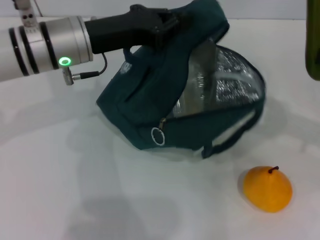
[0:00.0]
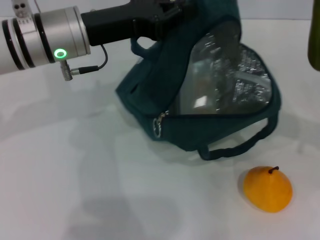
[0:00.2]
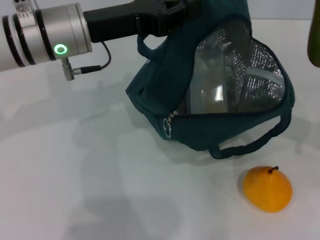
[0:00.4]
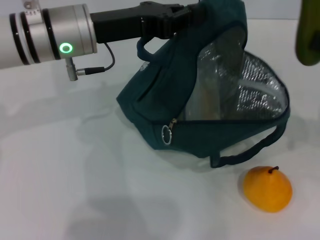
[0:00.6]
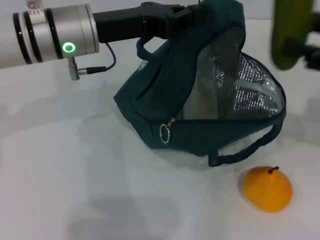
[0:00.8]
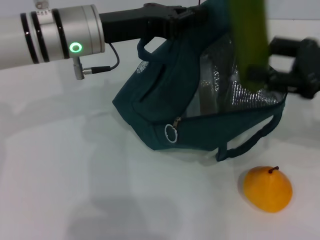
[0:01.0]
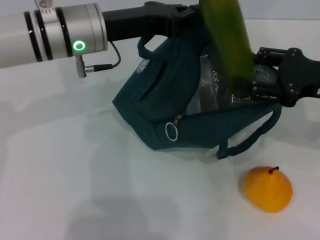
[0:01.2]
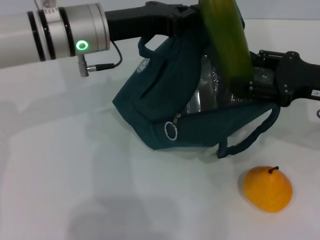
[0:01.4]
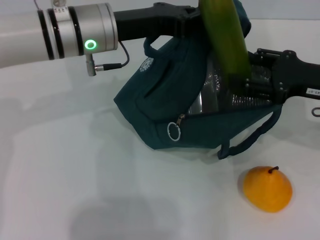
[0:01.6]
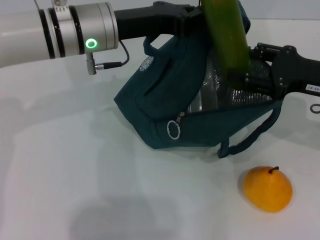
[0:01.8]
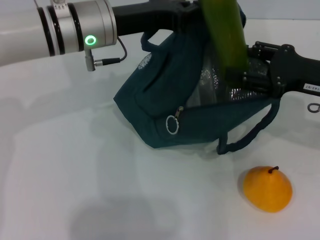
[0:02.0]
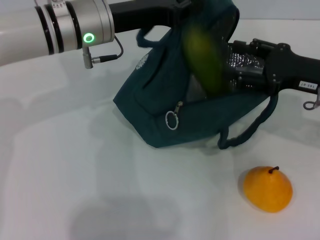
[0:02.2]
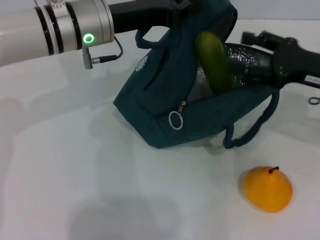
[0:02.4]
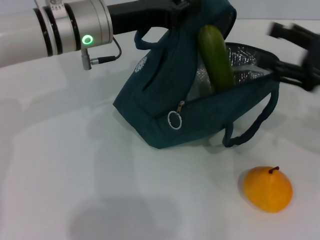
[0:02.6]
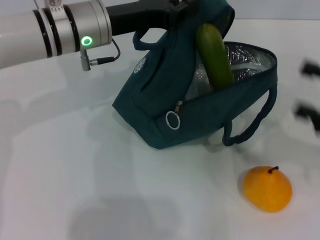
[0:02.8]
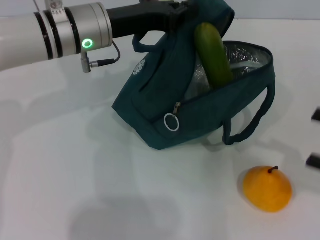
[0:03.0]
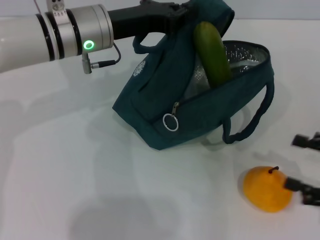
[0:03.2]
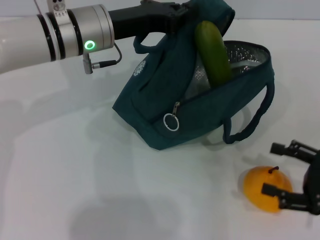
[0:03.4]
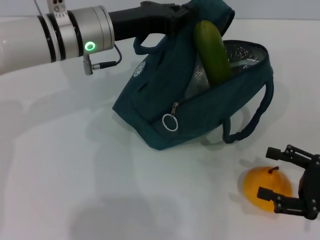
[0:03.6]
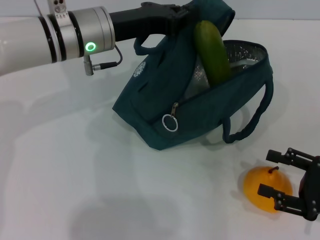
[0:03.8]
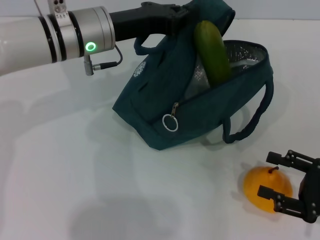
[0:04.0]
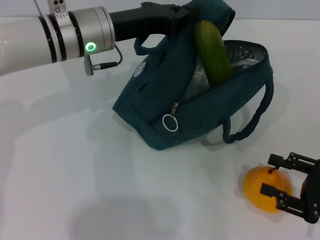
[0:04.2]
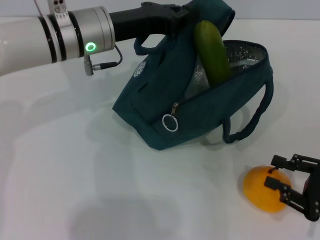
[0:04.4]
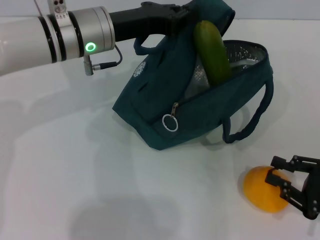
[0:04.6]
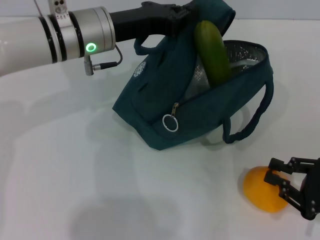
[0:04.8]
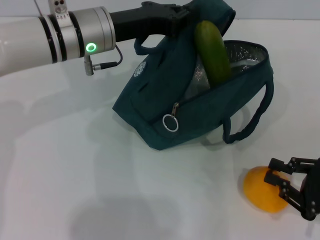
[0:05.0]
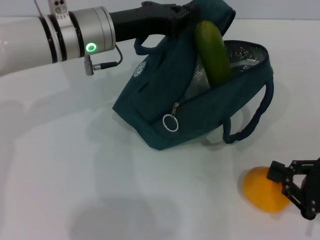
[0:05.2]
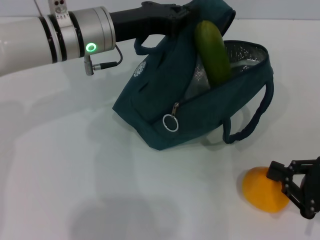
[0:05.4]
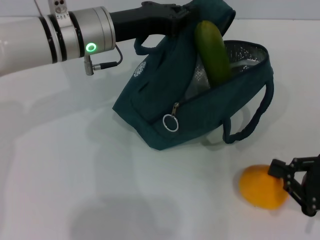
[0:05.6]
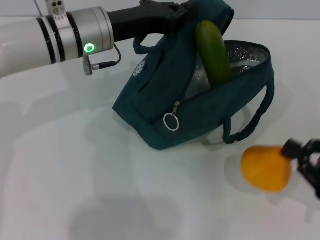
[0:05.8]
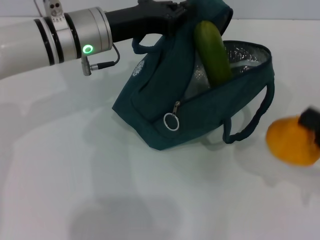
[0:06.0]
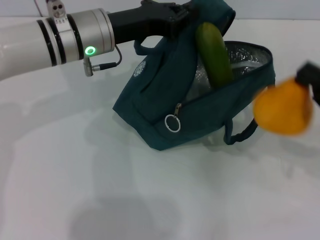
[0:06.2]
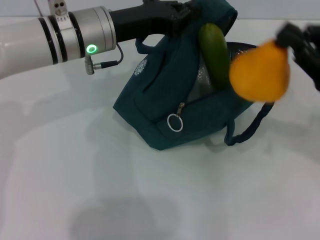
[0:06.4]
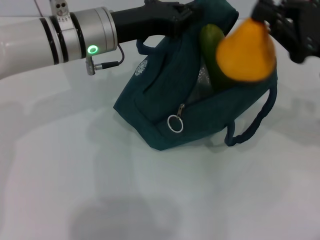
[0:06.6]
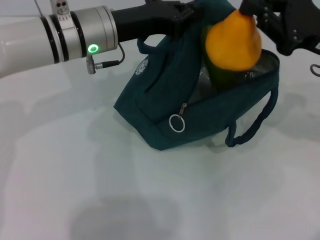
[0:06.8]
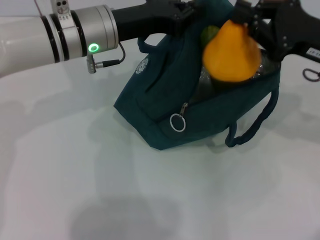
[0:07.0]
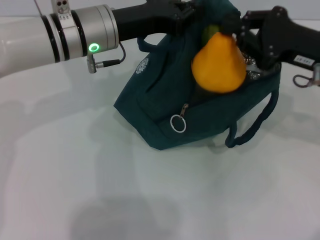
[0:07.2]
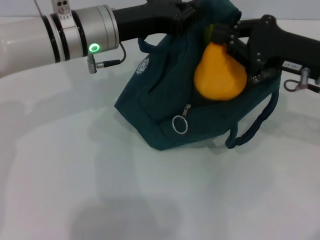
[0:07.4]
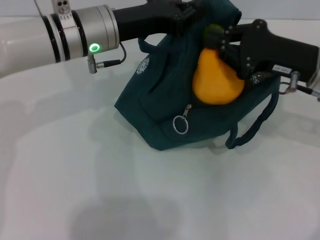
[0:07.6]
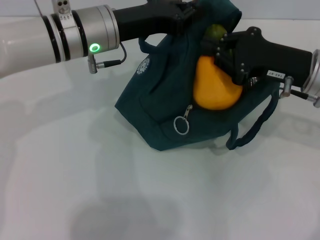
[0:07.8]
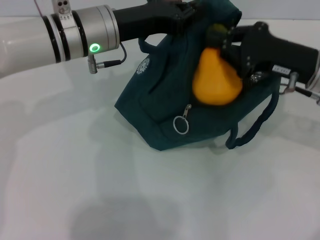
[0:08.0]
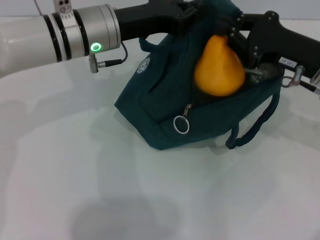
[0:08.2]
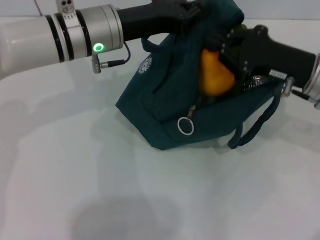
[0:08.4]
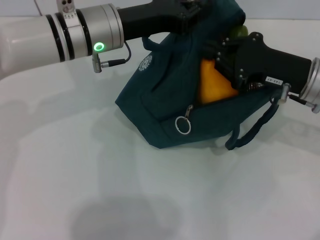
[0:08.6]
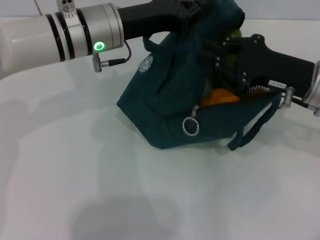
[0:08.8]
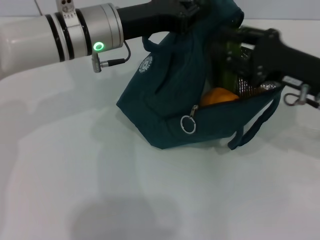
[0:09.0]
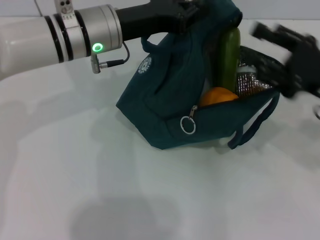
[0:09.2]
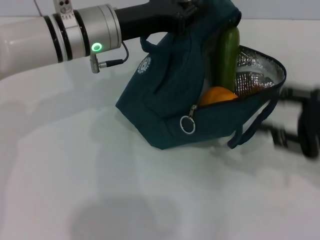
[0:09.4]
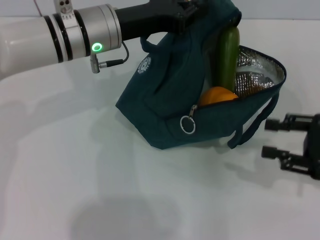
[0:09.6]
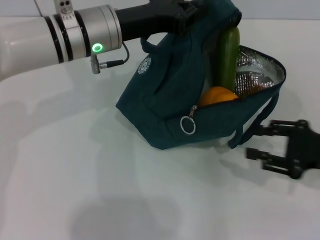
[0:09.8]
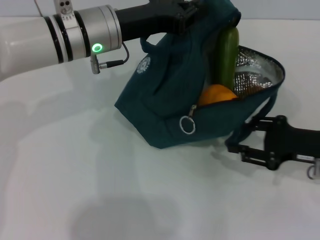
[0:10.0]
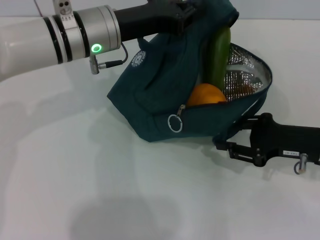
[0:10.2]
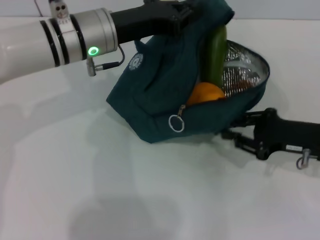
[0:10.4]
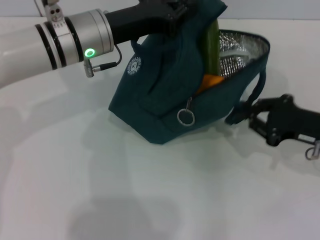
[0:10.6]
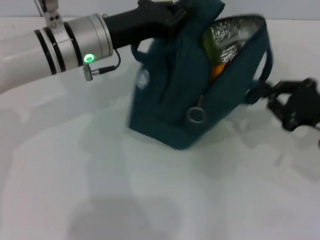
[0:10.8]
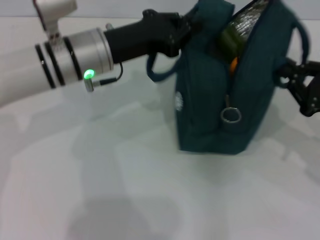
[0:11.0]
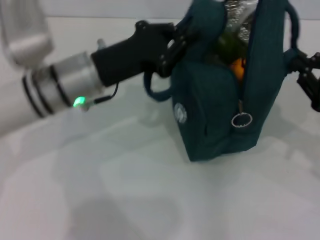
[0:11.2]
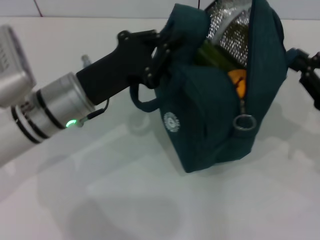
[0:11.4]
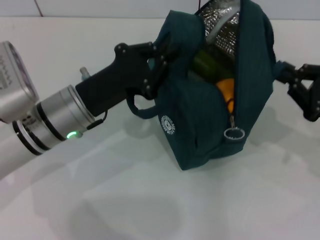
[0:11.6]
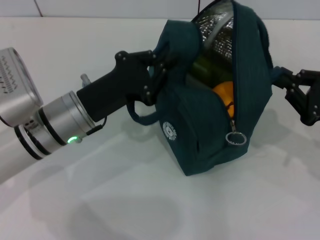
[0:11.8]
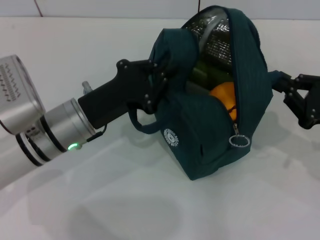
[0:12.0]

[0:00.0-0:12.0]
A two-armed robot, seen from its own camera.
Step, 0:00.0 to 0:02.8: Put the cucumber into the lunch bag with your right hand.
Step, 0:03.0 to 0:05.2: Grab the pear with your right hand.
0:00.0 to 0:01.6: The right gripper goes roughly 10 cm to the left, downward and forward.
0:01.6 to 0:03.0: The right gripper travels backward and to the right by about 15 cm.
0:03.0 to 0:04.4: The right gripper is displaced downward by some 5 cm.
0:04.4 to 0:06.0: The right gripper changes place by some 5 cm, and closes.
0:06.0 to 0:07.6: The right gripper goes about 20 cm forward, to the left and upward.
0:07.6 to 0:09.0: There are only small adjustments of the grippers.
0:09.0 to 0:10.4: The right gripper travels downward by approximately 5 cm, and moves approximately 10 cm to the right and comes back.
0:10.4 to 0:12.0: The left gripper shifts roughly 15 cm backward and downward, while the right gripper moves about 5 cm, and closes.

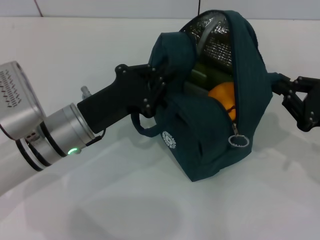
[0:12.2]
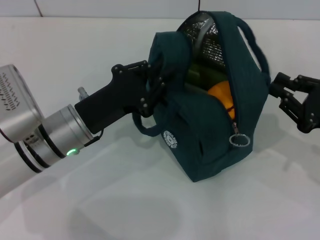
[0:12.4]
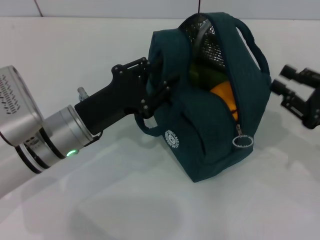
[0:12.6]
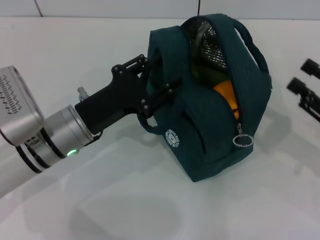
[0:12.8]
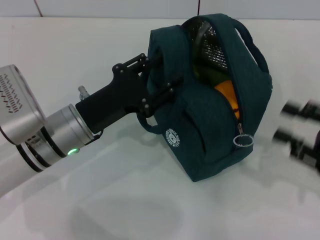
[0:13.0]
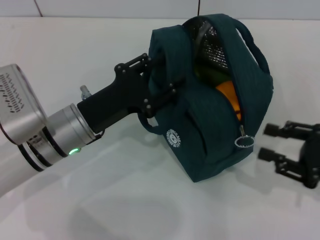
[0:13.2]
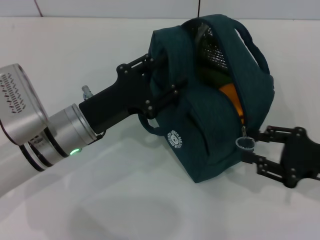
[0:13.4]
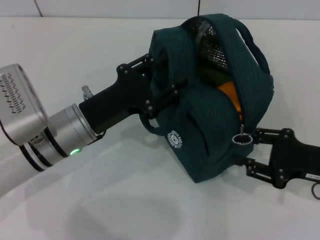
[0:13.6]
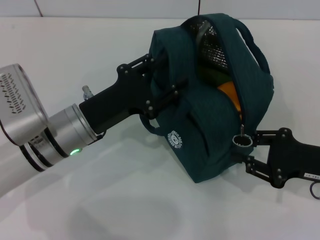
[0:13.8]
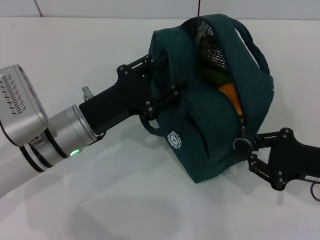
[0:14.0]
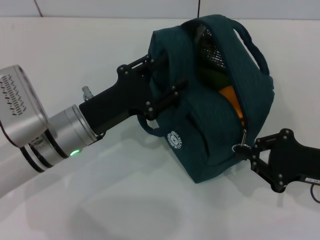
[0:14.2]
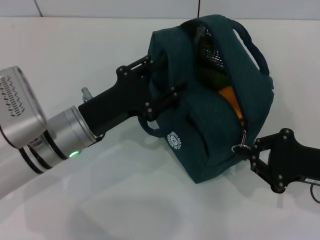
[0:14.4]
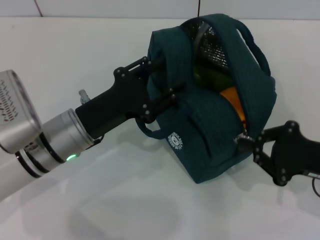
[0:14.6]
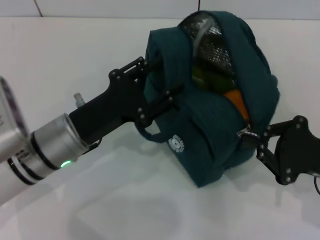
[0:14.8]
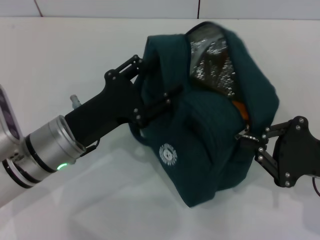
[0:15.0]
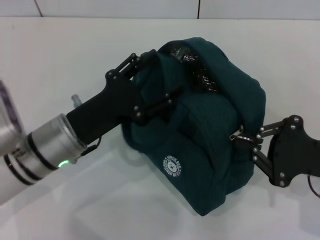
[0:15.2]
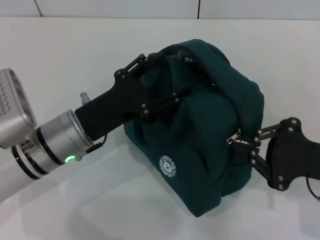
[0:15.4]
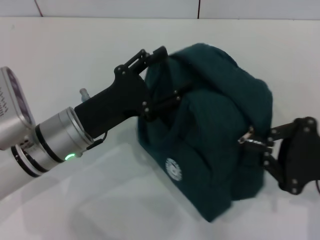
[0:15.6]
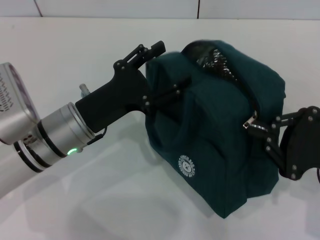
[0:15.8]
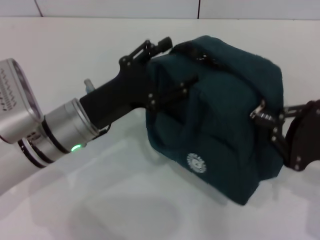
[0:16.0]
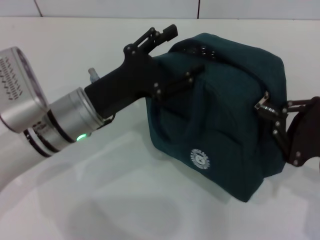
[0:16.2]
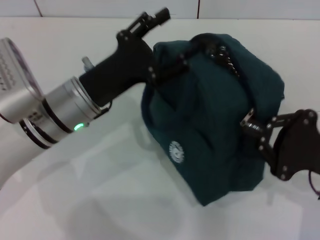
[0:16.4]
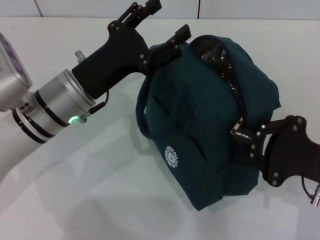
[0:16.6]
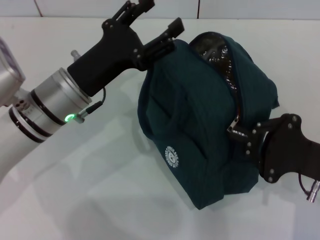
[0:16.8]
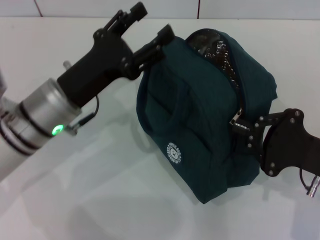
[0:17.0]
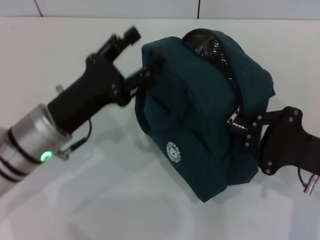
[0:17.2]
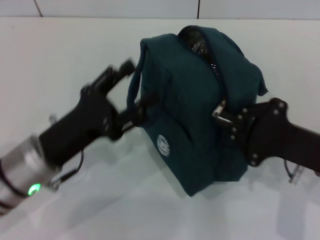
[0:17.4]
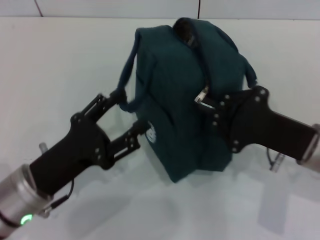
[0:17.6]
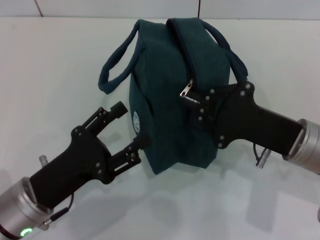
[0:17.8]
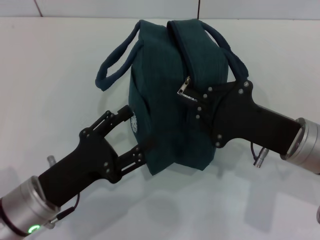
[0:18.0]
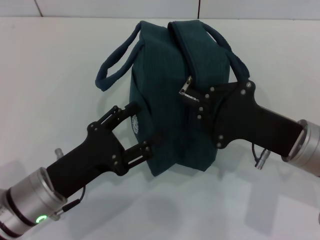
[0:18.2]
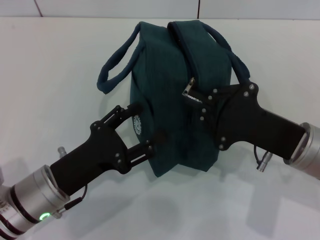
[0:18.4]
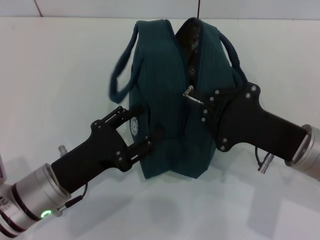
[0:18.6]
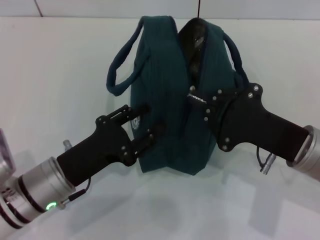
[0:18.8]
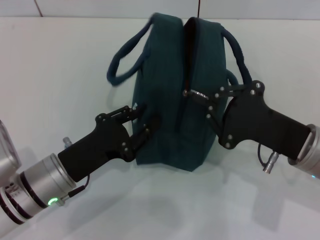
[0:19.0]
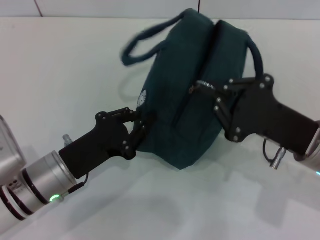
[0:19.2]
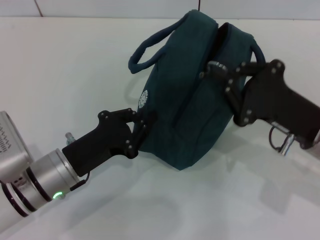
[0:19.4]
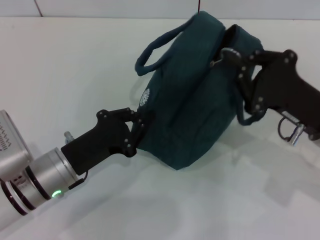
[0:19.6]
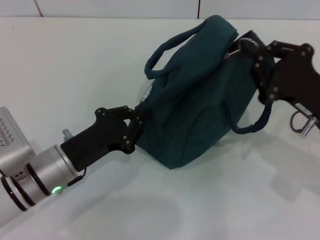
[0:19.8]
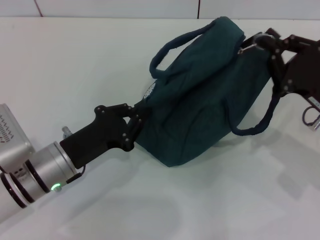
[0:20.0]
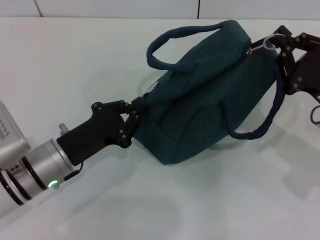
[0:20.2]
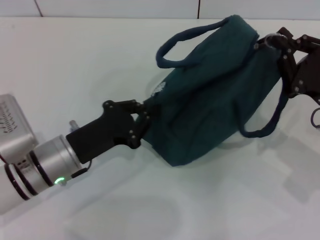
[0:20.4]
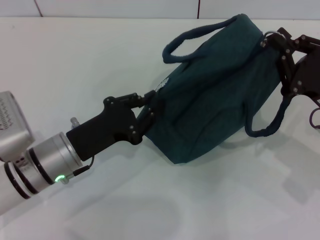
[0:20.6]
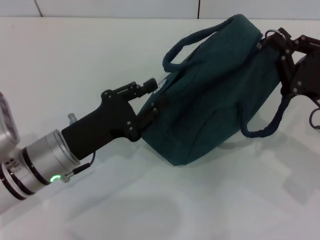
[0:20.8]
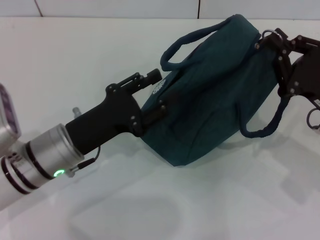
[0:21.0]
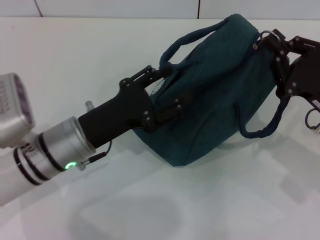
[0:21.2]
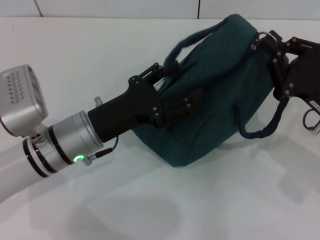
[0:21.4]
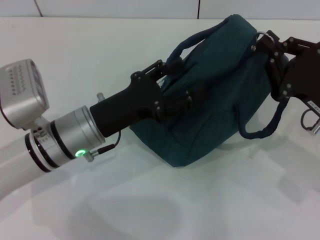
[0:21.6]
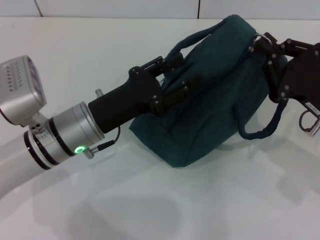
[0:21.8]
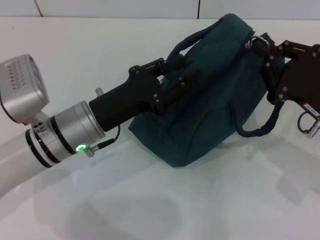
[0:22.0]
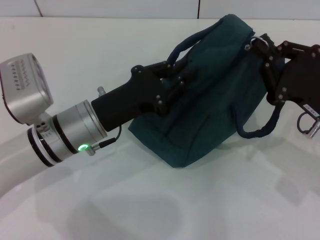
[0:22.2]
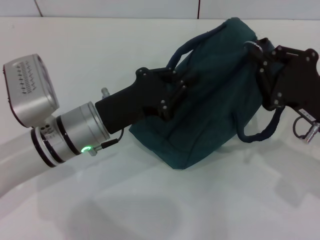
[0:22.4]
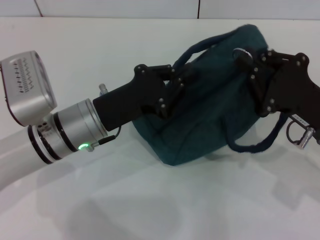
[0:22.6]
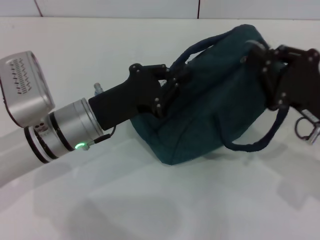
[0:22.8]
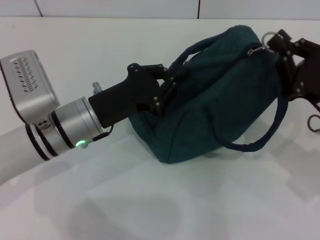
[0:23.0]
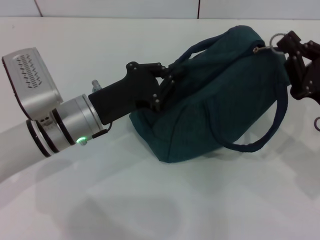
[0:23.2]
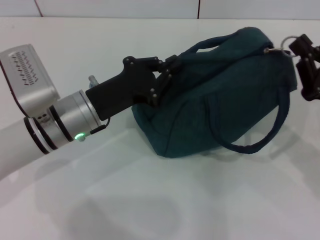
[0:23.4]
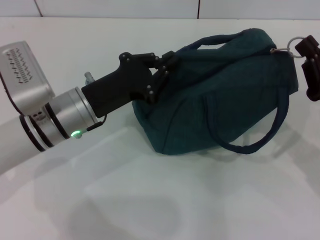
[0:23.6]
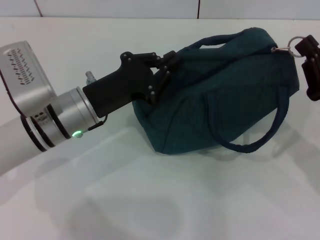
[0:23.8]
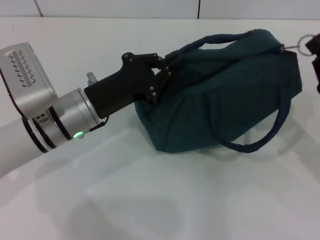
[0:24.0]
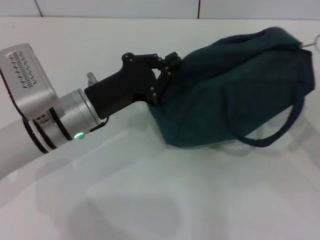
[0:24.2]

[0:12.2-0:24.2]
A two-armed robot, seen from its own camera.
Step, 0:12.8 to 0:16.0: Hold the lunch bag with your left hand.
0:12.2 to 0:13.8: The left gripper opens its fingers. Meanwhile the right gripper opens.
0:13.8 to 0:15.2: The right gripper closes.
0:15.2 to 0:16.6: The left gripper changes place by some 5 cm.
0:16.6 to 0:18.2: The right gripper shifts about 5 cm to the left. The left gripper is displaced backward and downward by roughly 10 cm.
0:18.2 to 0:19.8: The left gripper closes up.
0:19.8 to 0:21.2: The left gripper ends up approximately 5 cm from where it was, and opens.
0:21.2 to 0:22.6: The left gripper closes up.
0:22.6 to 0:24.2: The right gripper is displaced to the right by some 5 cm.
